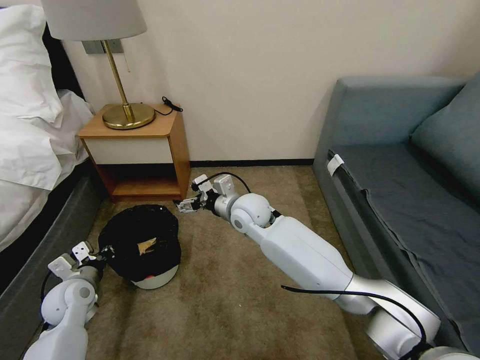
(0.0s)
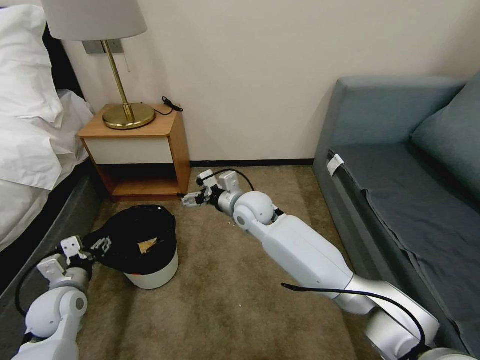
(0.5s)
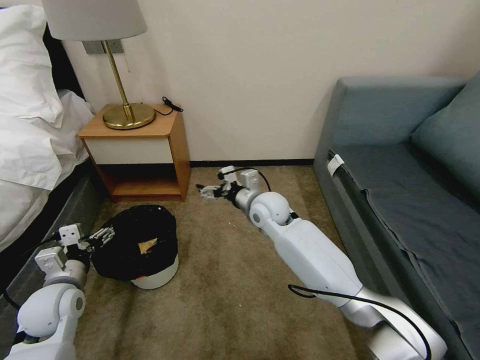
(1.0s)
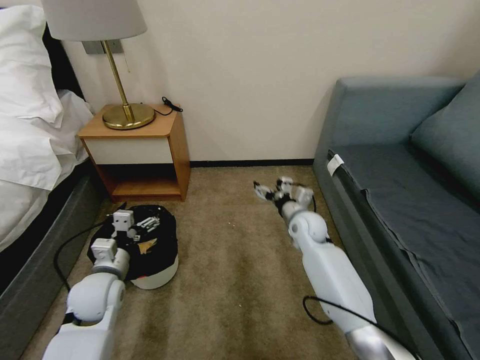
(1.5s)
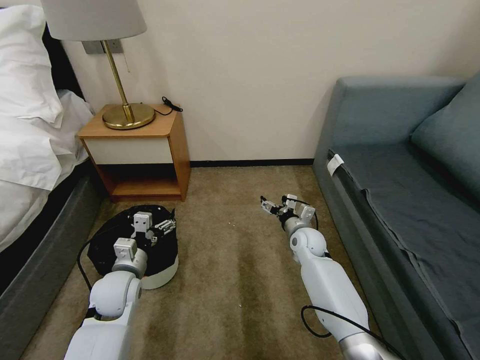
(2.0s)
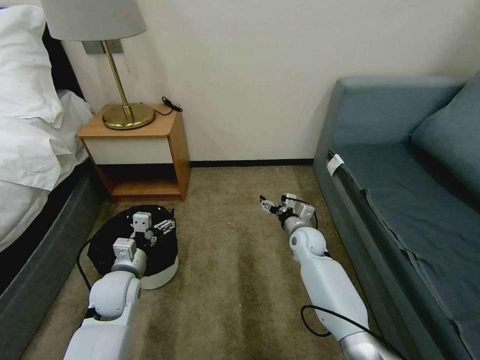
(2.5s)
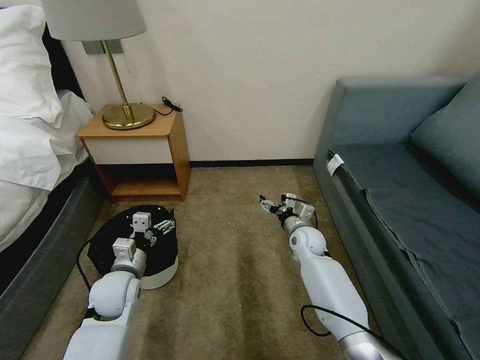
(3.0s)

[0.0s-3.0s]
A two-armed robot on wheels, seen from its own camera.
Task of the whole recording: Pick up the trash bin, then pick up the garbage on the floor and place it into the trash bin.
0.0s to 1.5s: The right gripper is displaced to the right and downward by approximately 20 cm. The left gripper goes roughly 10 cm to the right, and opens its fingers.
1.5s to 3.0s: The right gripper goes some 5 cm downward.

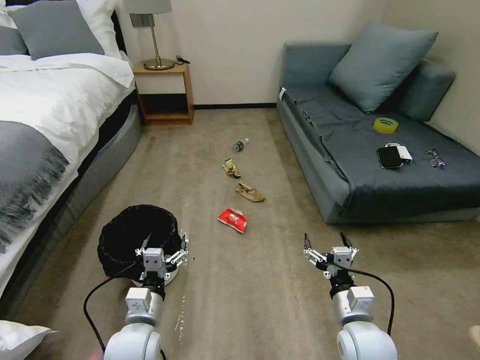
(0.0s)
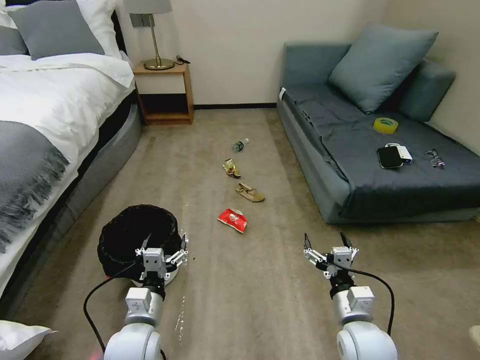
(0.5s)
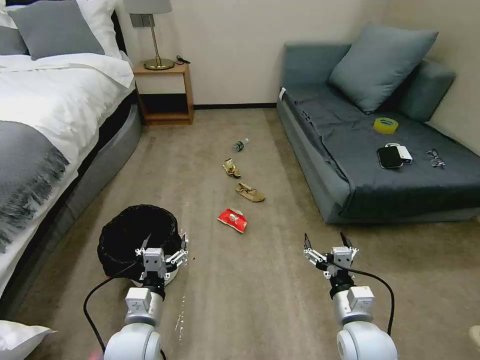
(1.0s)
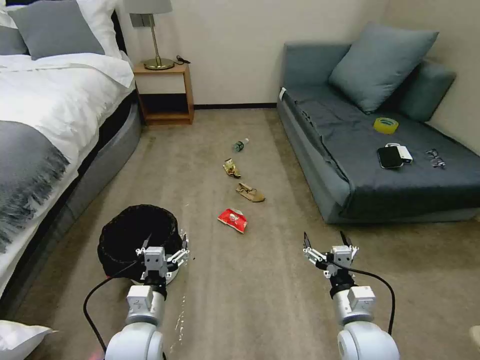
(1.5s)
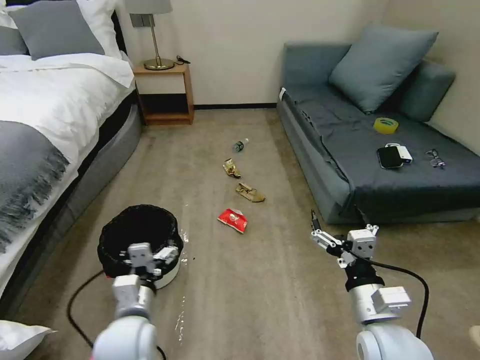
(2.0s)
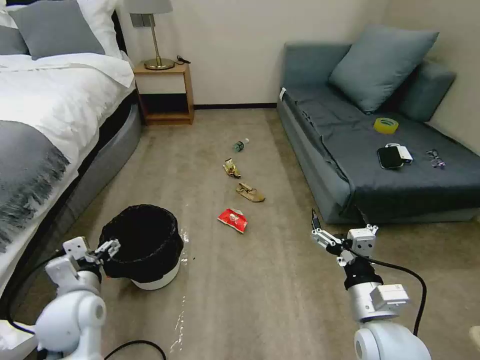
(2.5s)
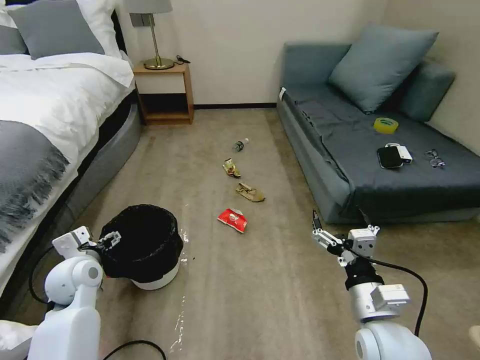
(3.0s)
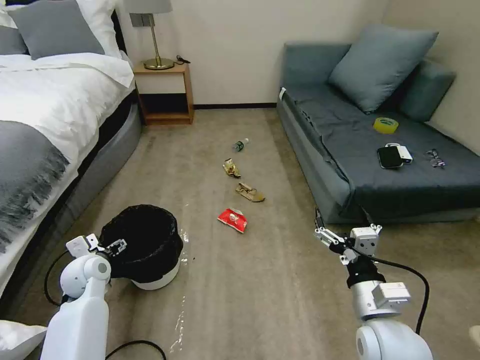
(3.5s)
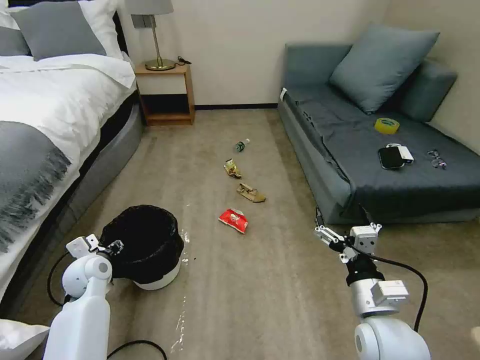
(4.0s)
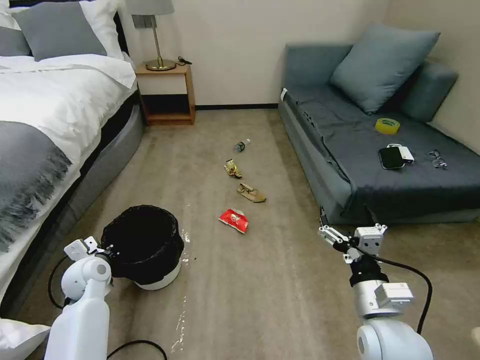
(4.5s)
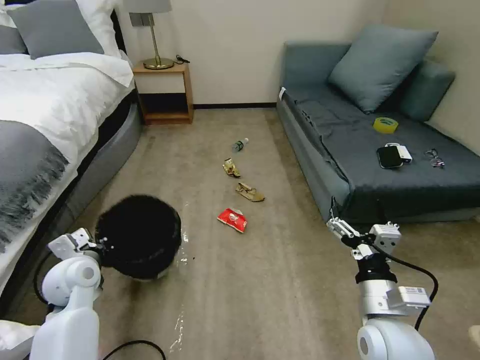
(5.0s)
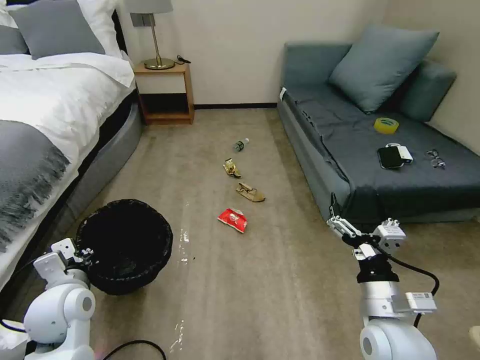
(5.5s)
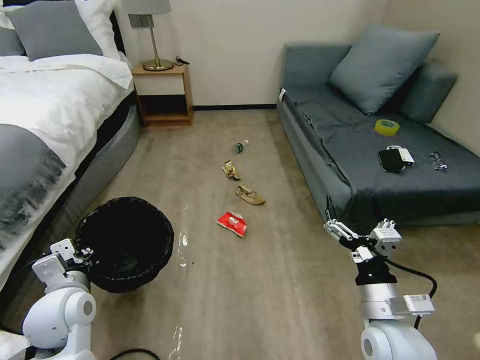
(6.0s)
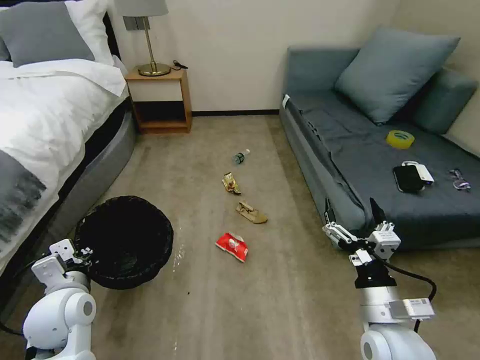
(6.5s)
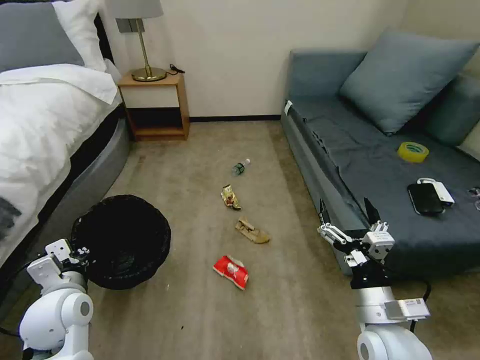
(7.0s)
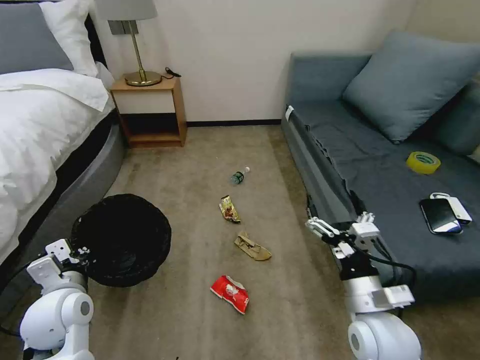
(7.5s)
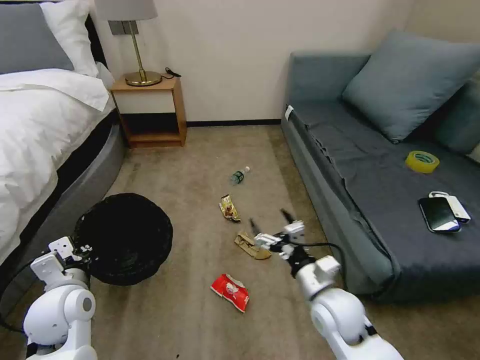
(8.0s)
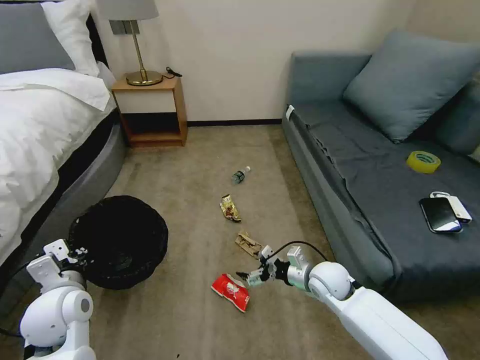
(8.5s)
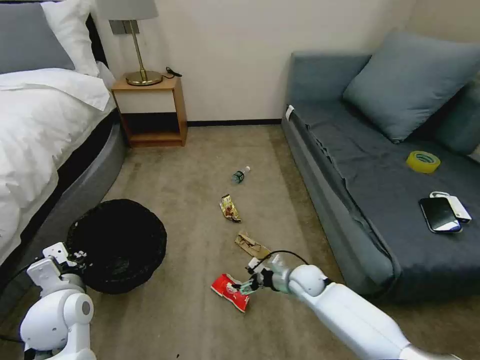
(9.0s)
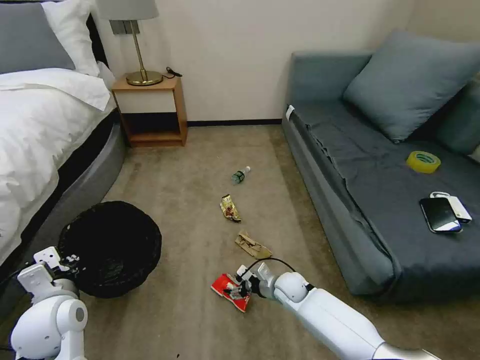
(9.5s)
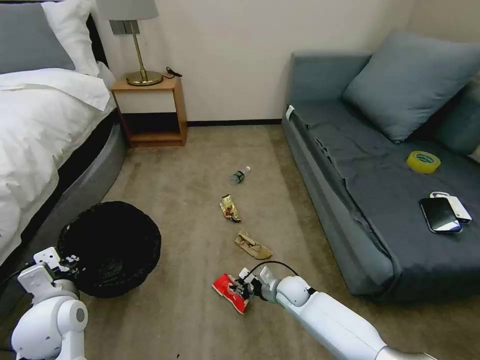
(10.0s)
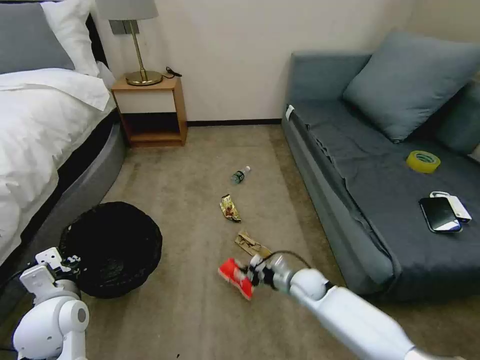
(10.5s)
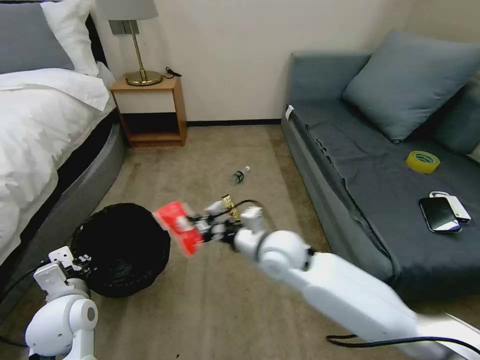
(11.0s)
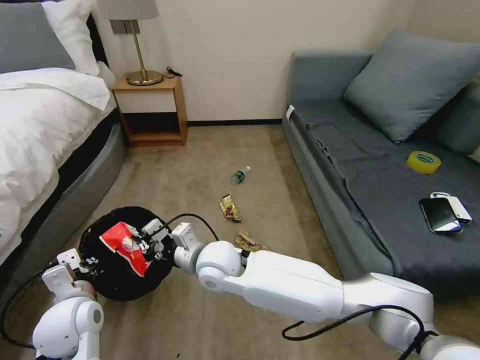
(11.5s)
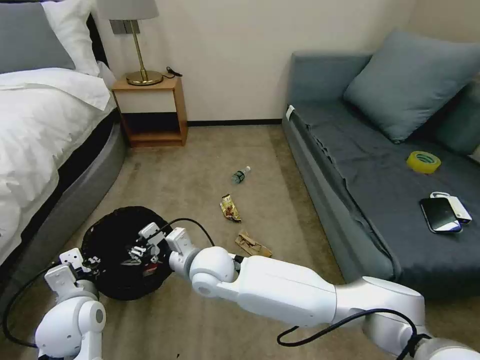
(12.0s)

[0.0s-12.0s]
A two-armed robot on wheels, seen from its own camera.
Task of the whole recording: Pick up the trash bin, then pick up the garbage on the floor and place it into the trash bin.
2.0s to 4.0s: The left gripper moves to the left and forward, about 20 cm, and closes.
4.0s to 6.0s: The left gripper moves backward and upward, some 15 cm, and closes its fingers.
6.0s to 8.0s: The right gripper is displaced forward and to the left by about 10 cm.
8.0s to 10.0s: The right gripper is displaced downward and forward by roughly 20 cm, and closes its fingers.
10.0s to 12.0s: The right gripper shifts about 30 cm upward and to the left.

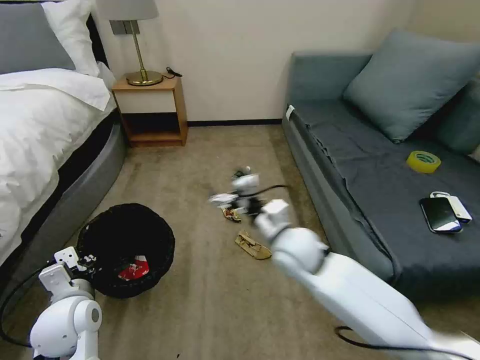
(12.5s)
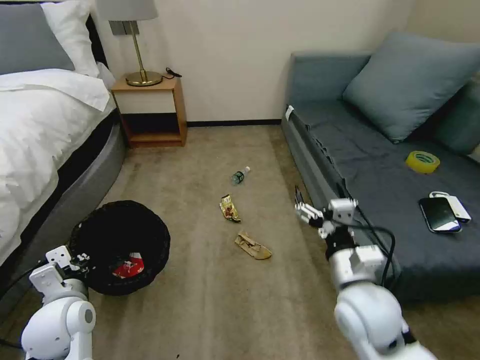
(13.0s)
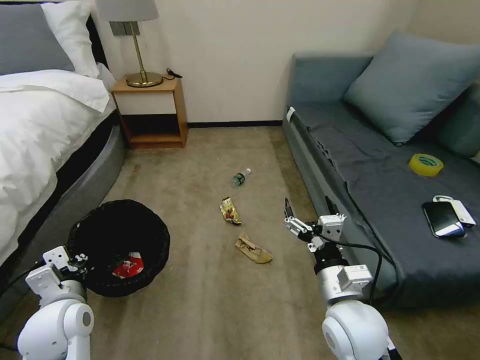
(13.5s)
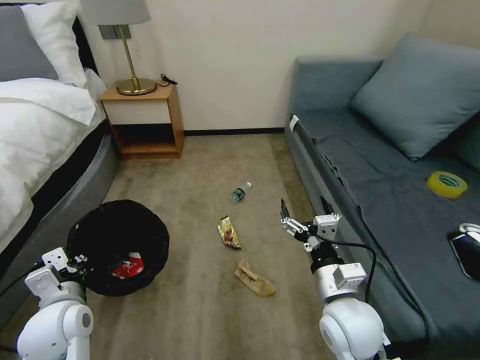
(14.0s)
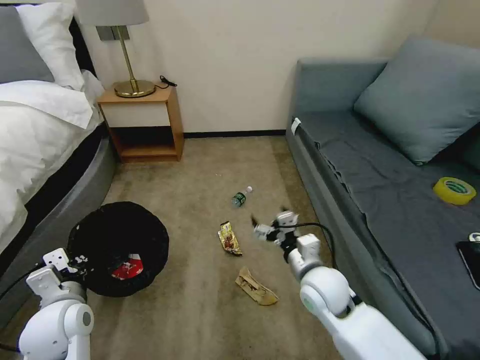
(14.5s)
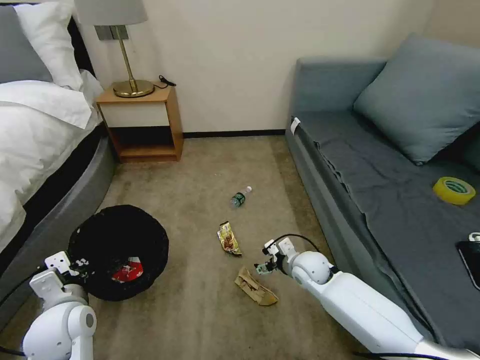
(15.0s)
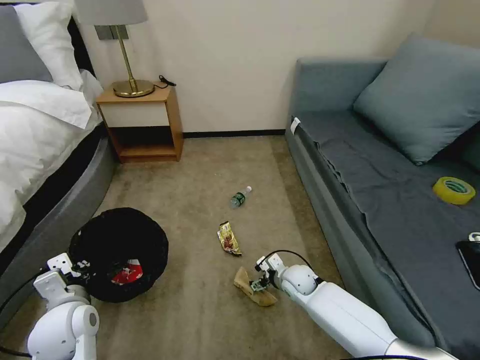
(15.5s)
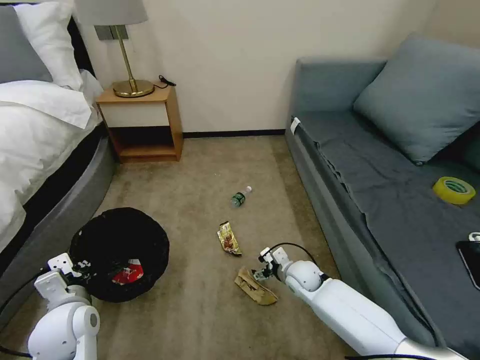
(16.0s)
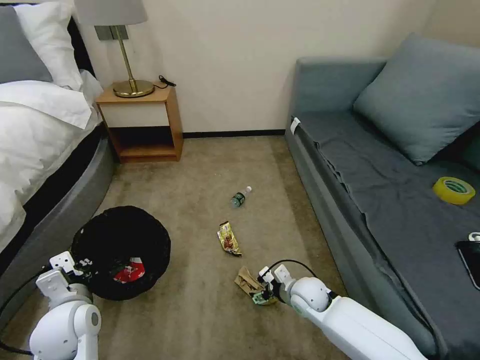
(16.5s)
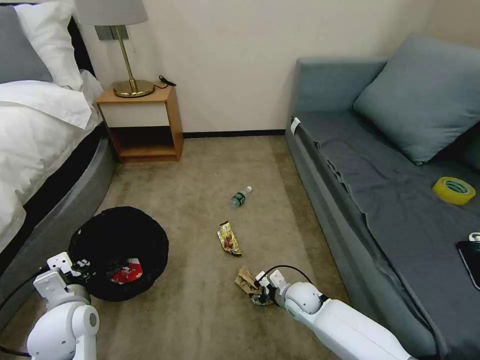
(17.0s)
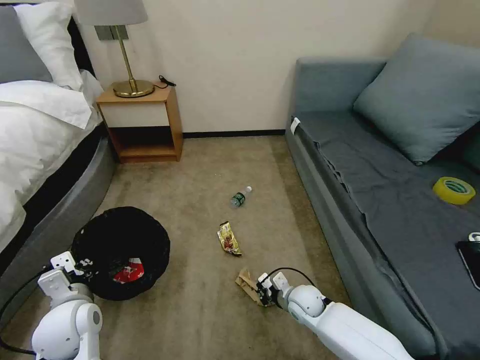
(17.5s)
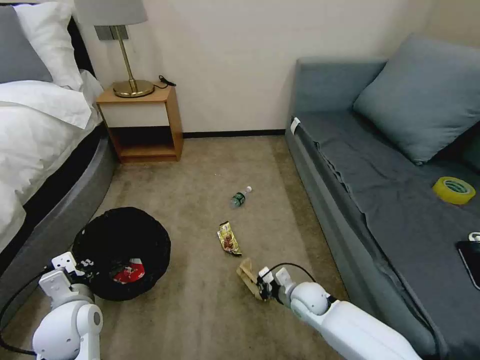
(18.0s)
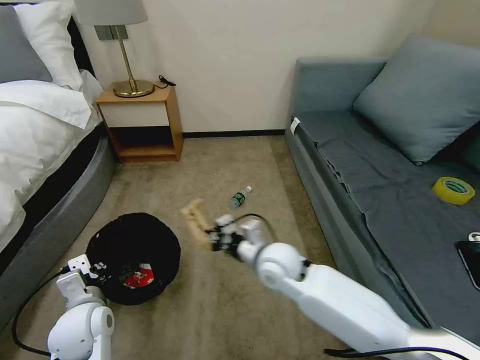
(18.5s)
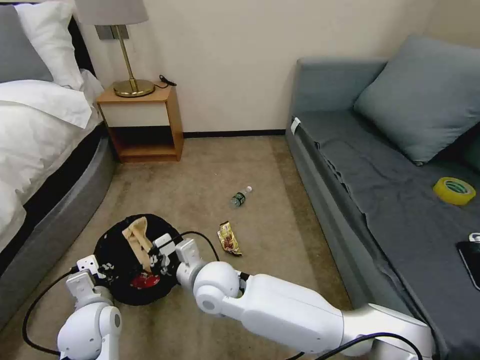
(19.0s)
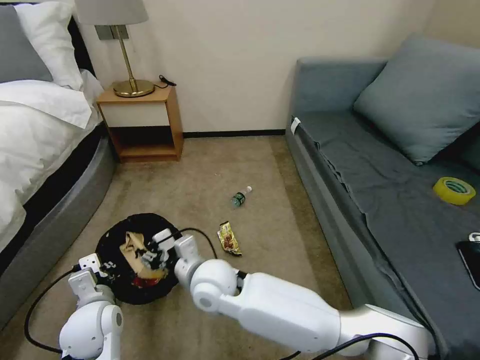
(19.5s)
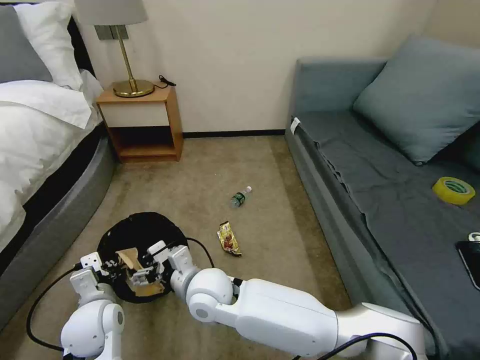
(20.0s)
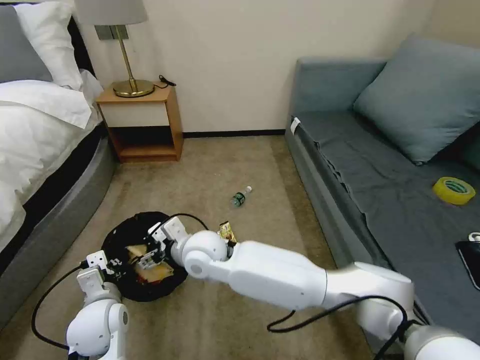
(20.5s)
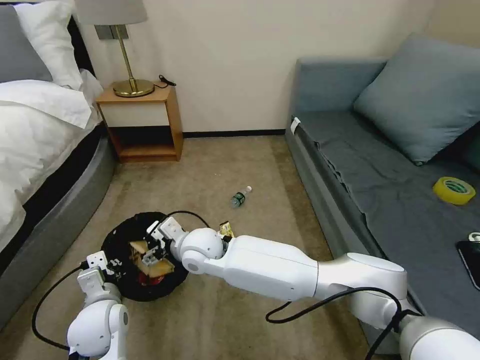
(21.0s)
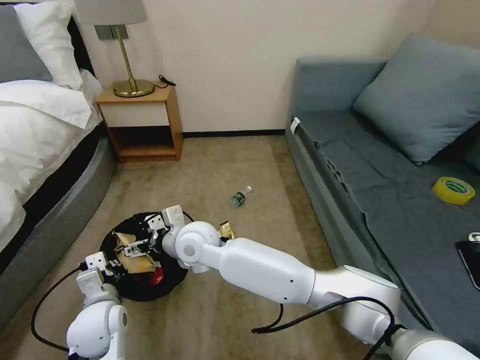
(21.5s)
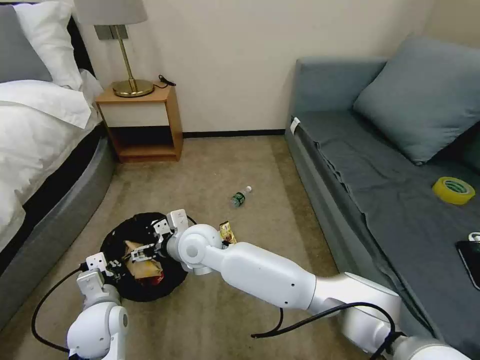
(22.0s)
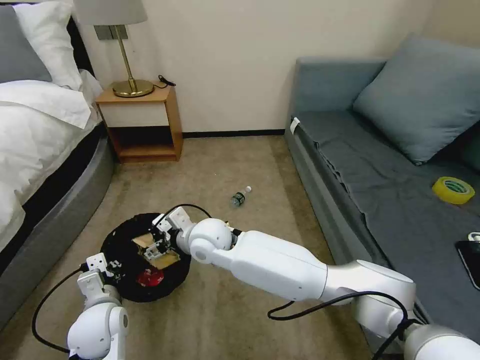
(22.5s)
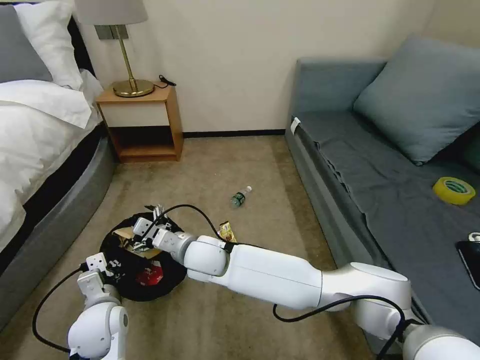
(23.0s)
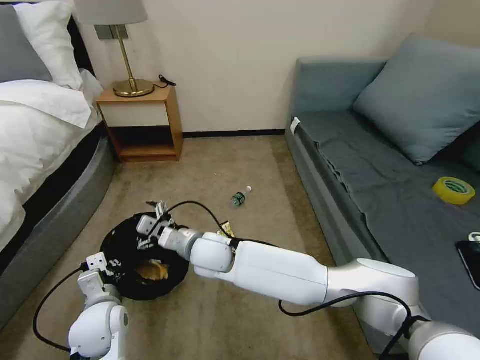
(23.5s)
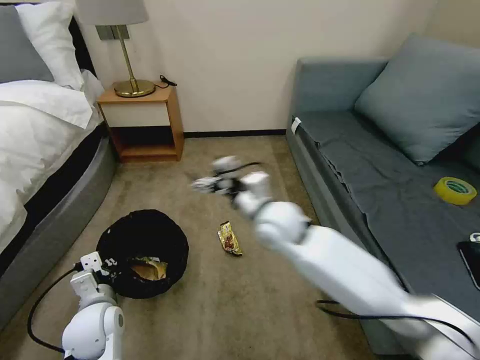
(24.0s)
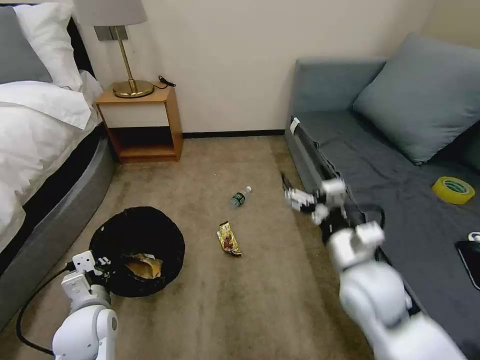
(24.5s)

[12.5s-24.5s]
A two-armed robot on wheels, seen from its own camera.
Task of the whole recording: Pick up the trash bin, then pick up the garbage on the floor and place it into the trash bin.
12.5s to 14.5s: The right gripper travels backward, to the right and downward by about 10 cm.
14.5s to 16.5s: The right gripper moves downward, about 15 cm.
16.5s to 18.5s: The right gripper moves upward and to the left, about 20 cm, and closes its fingers.
18.5s to 20.5s: The right gripper shifts about 15 cm to the left, and opens its fingers.
22.5s to 24.5s: The right gripper heads to the right and backward, covering about 30 cm.
